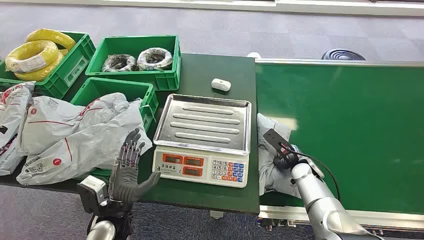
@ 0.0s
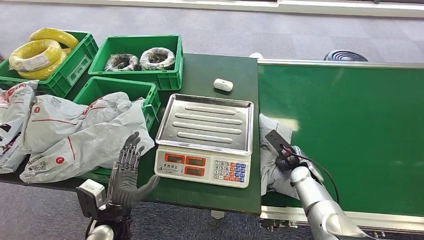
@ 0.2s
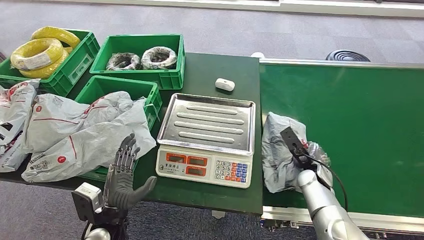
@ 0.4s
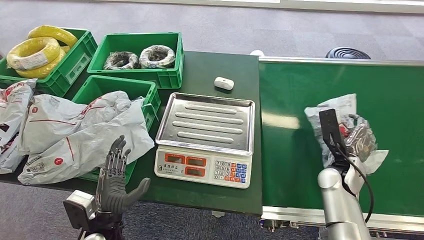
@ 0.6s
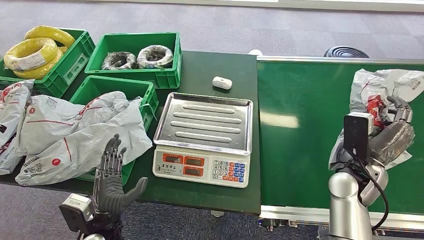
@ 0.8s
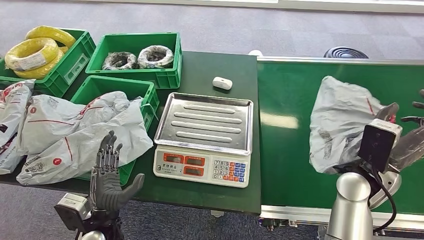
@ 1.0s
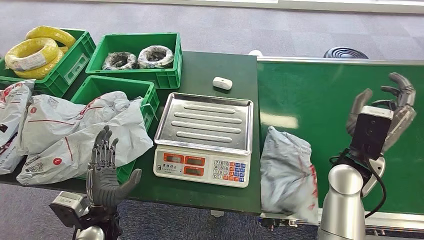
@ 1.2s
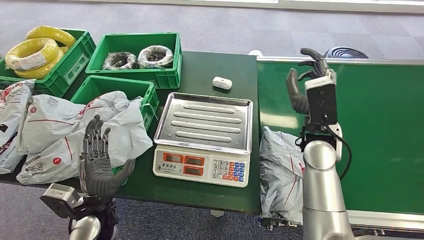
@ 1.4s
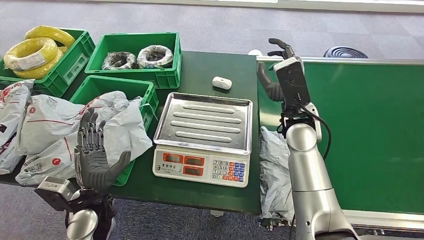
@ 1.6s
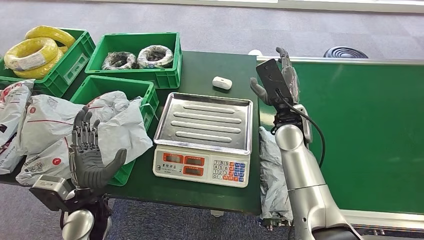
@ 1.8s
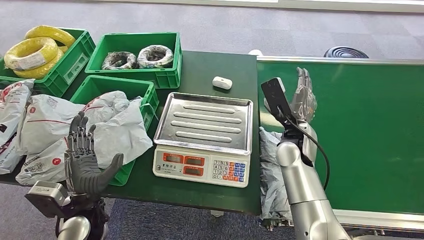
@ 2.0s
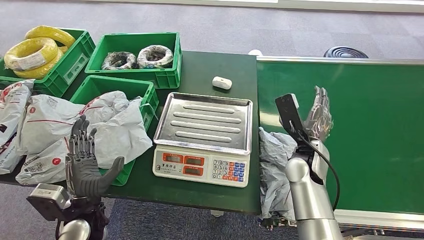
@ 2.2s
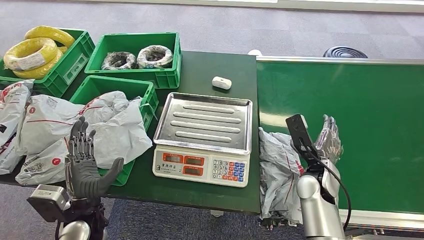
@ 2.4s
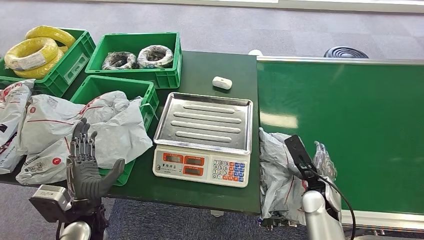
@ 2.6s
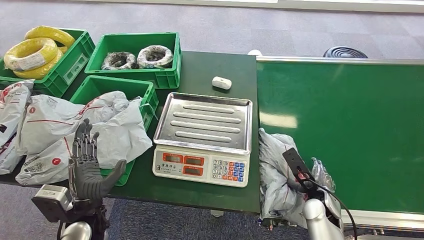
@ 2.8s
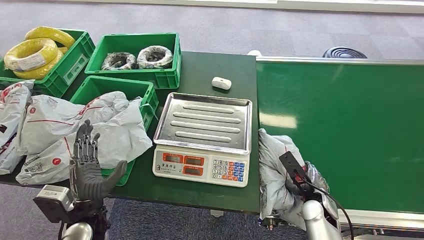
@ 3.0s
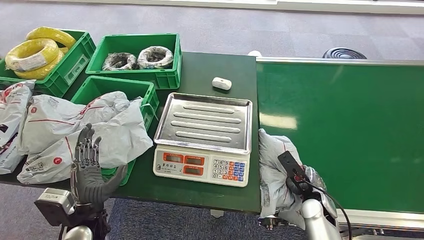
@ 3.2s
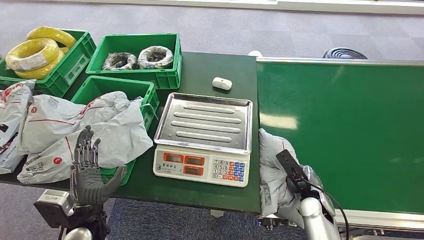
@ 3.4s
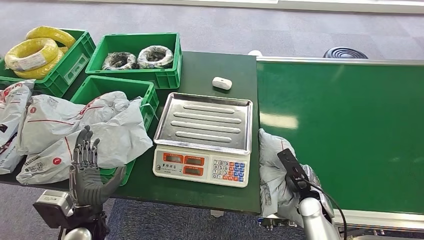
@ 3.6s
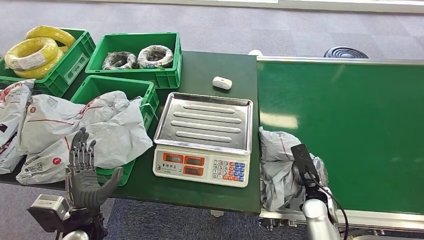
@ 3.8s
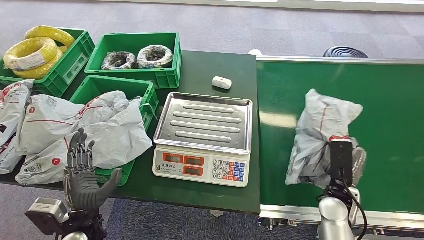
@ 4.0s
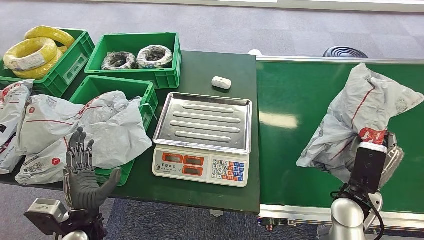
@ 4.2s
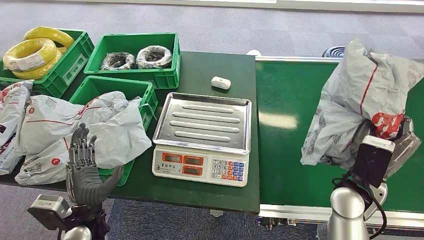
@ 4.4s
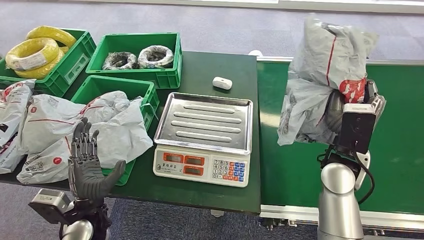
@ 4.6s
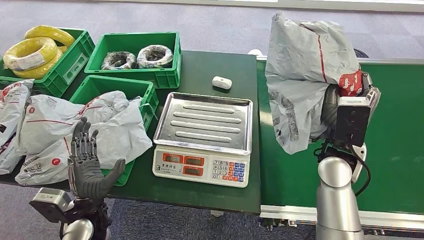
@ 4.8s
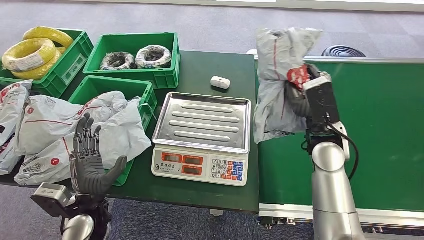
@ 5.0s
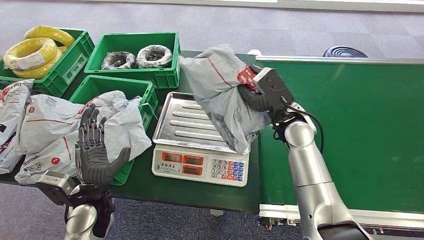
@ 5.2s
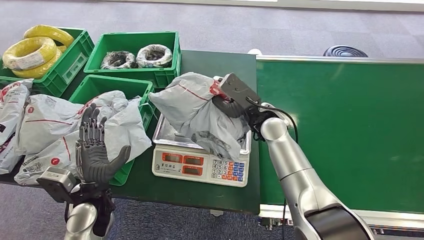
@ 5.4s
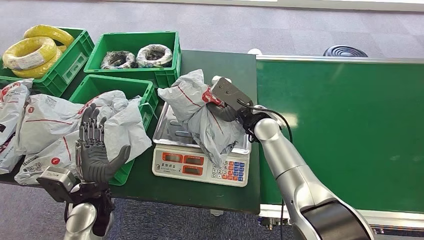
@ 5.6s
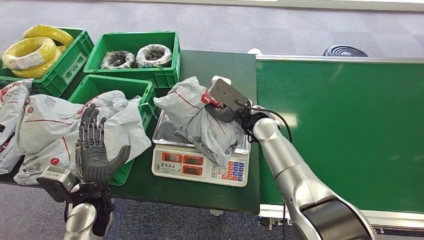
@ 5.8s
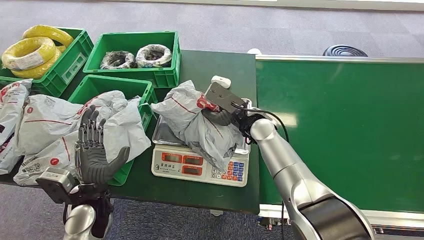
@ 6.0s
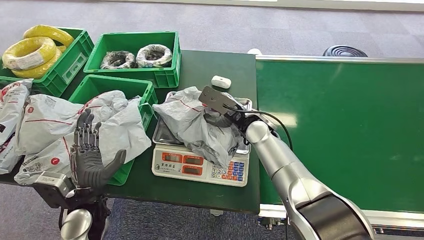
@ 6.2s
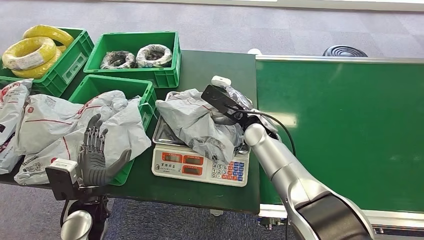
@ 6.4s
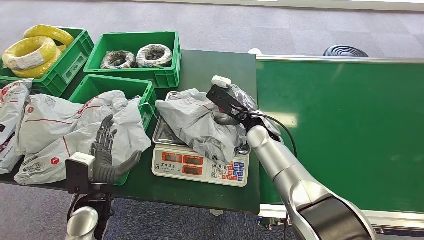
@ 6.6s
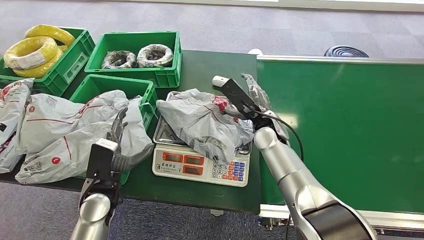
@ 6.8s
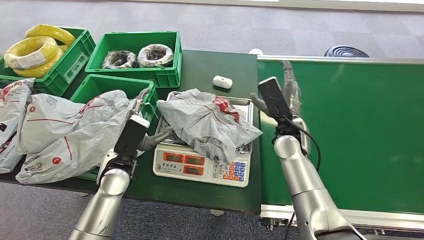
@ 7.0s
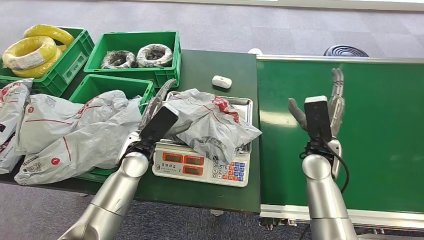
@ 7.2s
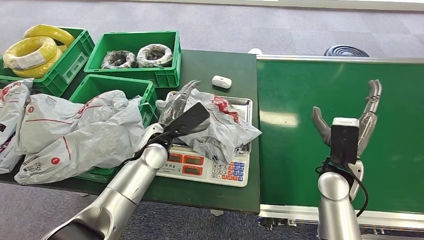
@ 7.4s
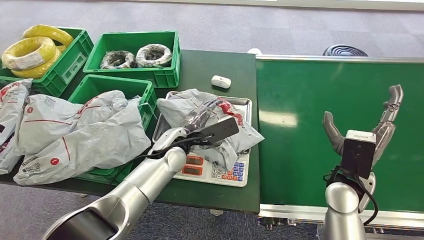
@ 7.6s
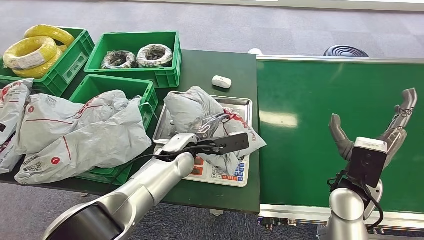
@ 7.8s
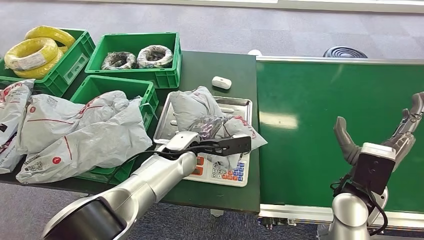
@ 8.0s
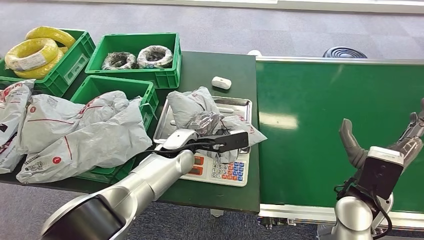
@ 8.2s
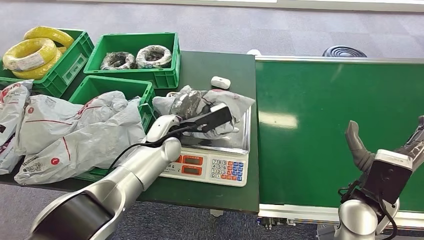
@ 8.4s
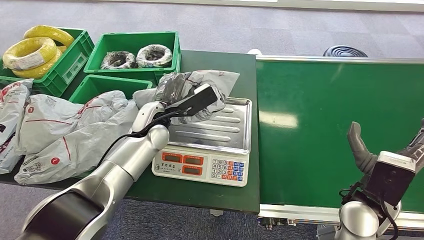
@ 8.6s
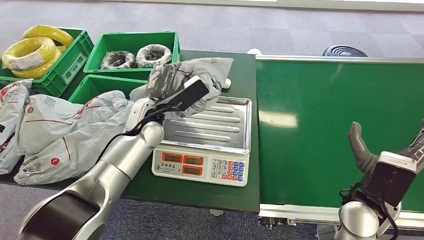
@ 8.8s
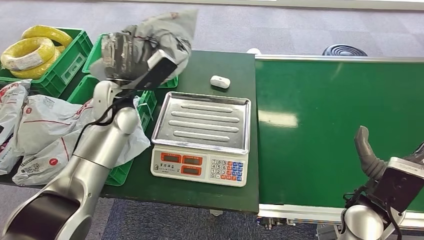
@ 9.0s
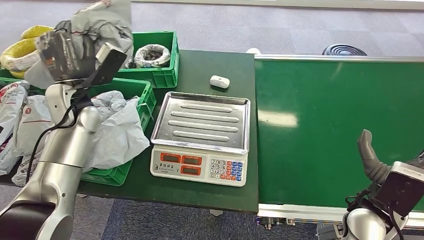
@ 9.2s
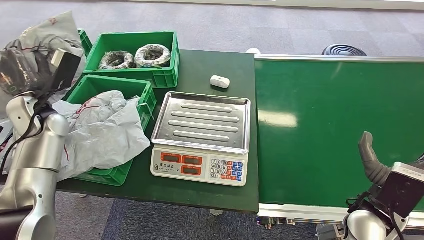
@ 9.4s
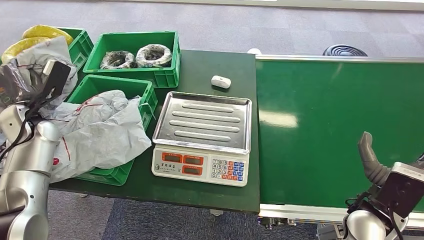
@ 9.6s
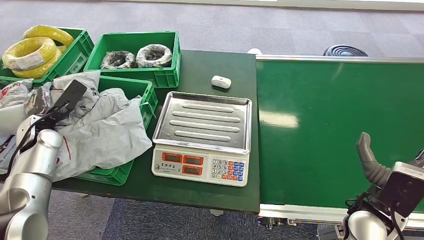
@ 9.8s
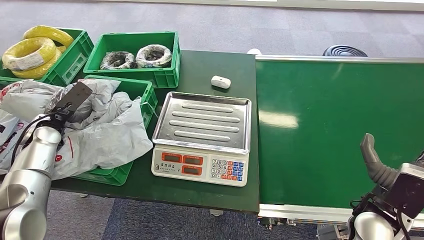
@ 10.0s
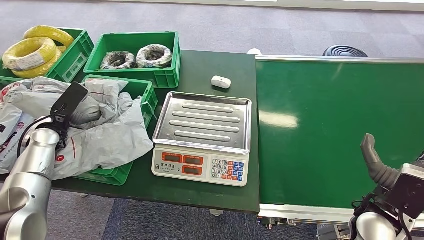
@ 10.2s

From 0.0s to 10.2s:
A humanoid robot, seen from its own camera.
Step, from 0.0s to 0.8s: Pick up the package from the conveyor belt.
Step, from 4.2s to 7.0s: Place the package onto the inbound machine.
Step, from 7.2s to 9.0s: Pick up the package from the inbound machine.
Step, from 9.4s to 10.2s: Place the package into the parcel locker.
From 1.4s to 3.0s: The right hand goes roughly 25 cm downward and backward.

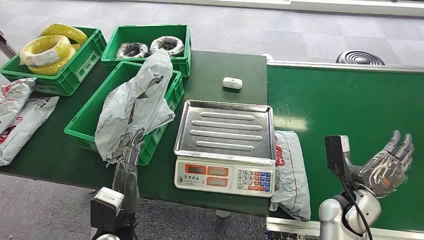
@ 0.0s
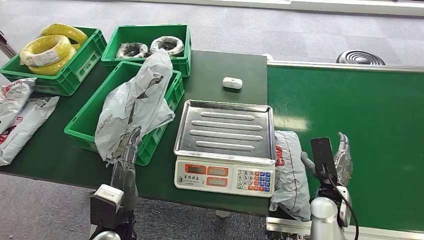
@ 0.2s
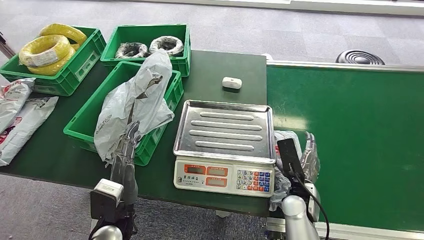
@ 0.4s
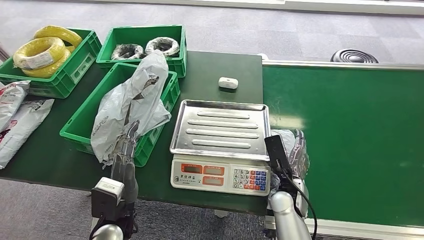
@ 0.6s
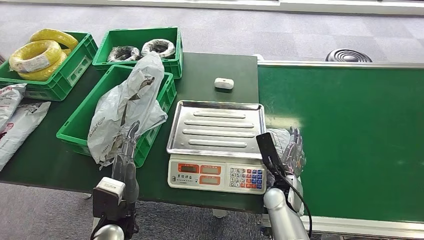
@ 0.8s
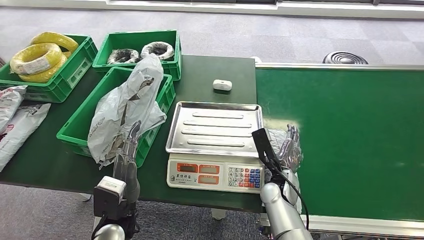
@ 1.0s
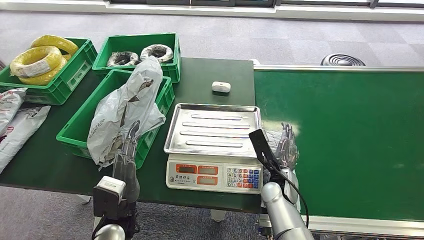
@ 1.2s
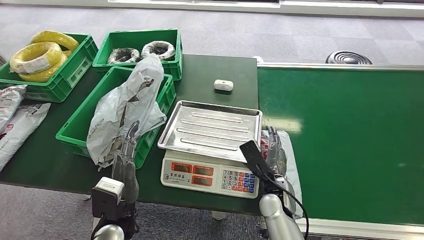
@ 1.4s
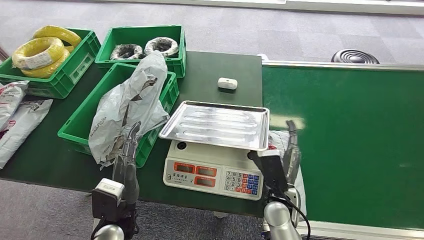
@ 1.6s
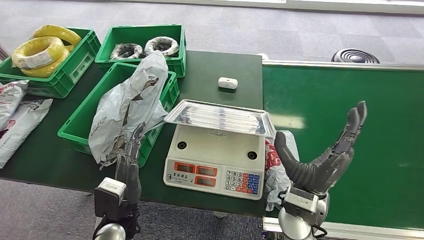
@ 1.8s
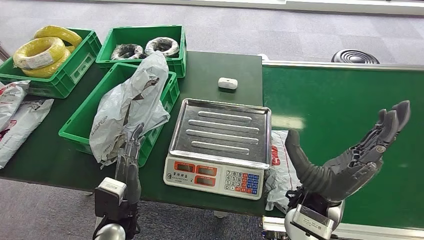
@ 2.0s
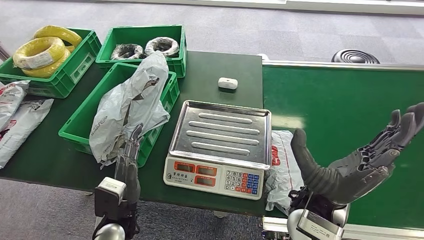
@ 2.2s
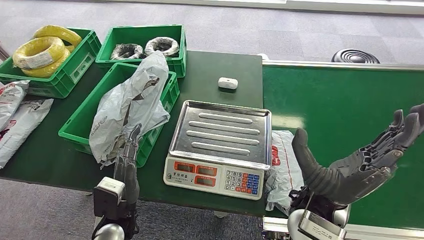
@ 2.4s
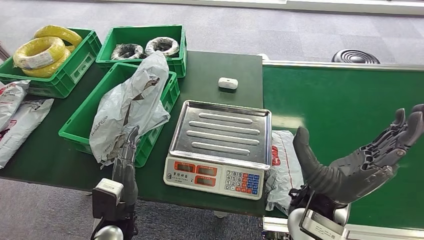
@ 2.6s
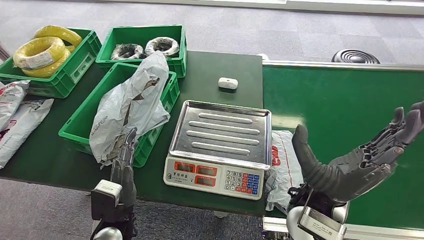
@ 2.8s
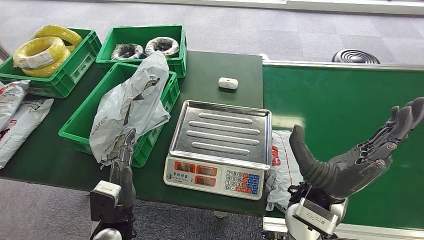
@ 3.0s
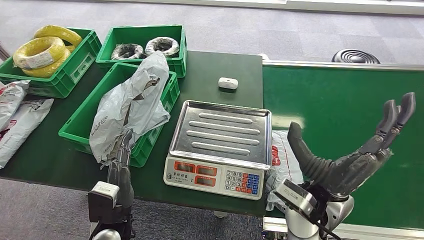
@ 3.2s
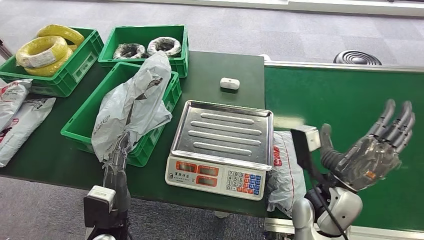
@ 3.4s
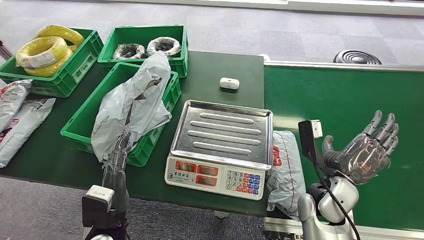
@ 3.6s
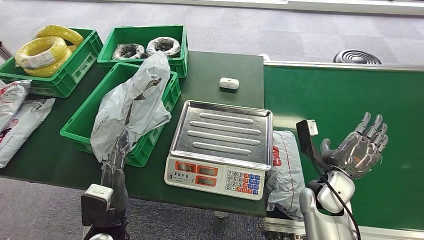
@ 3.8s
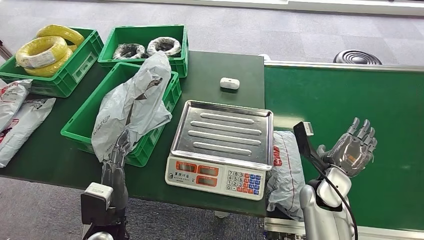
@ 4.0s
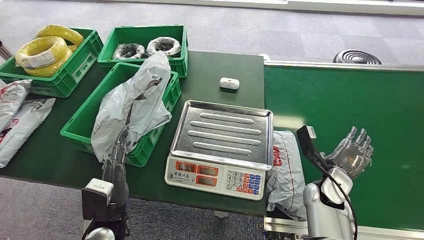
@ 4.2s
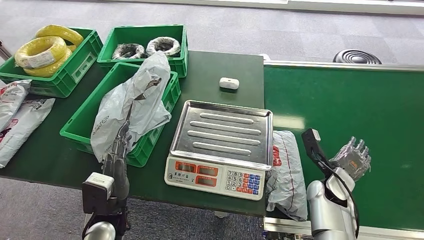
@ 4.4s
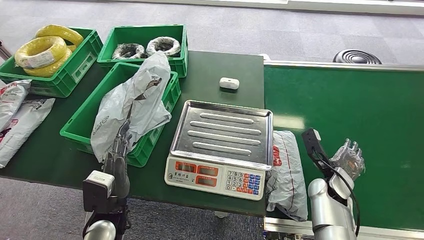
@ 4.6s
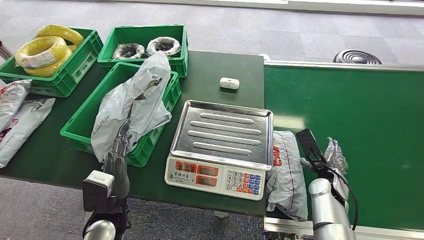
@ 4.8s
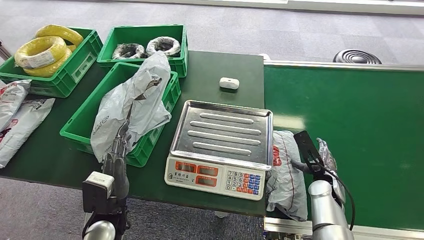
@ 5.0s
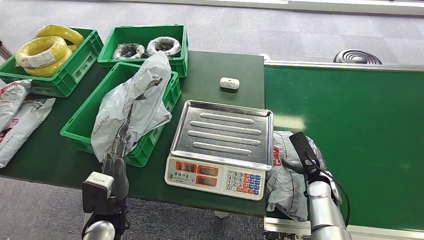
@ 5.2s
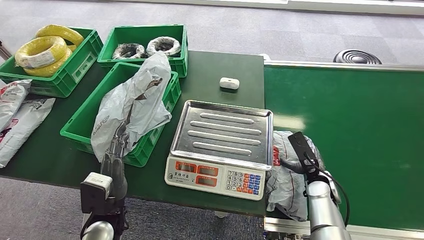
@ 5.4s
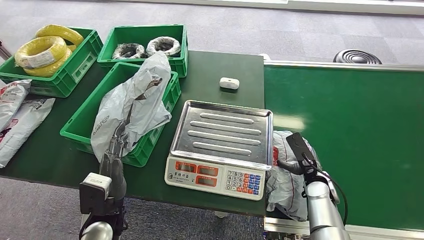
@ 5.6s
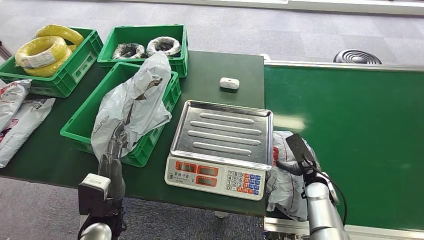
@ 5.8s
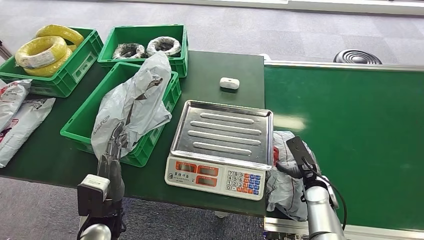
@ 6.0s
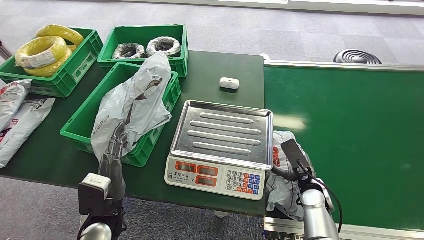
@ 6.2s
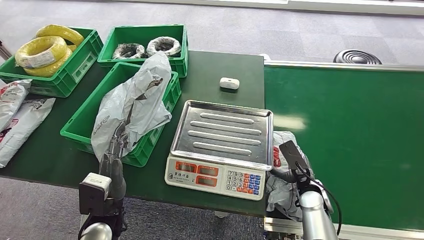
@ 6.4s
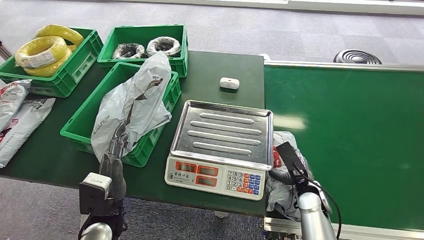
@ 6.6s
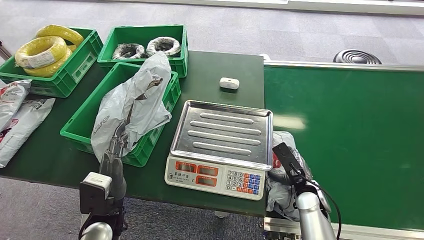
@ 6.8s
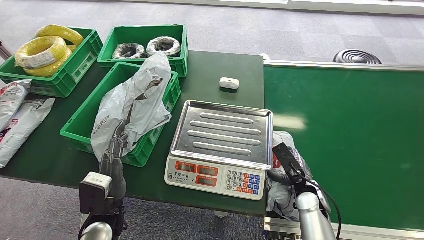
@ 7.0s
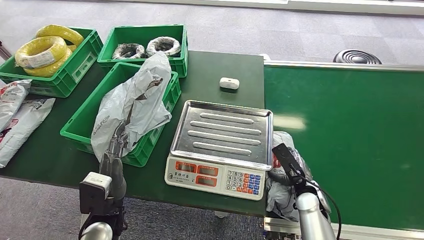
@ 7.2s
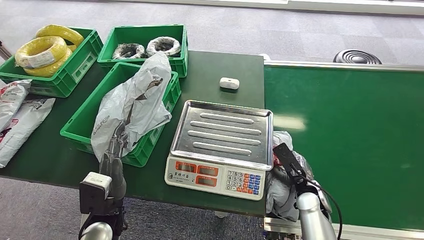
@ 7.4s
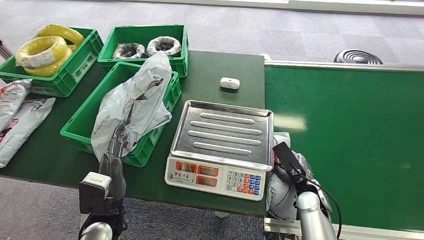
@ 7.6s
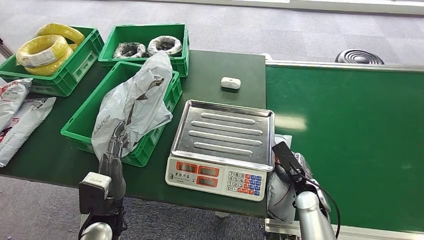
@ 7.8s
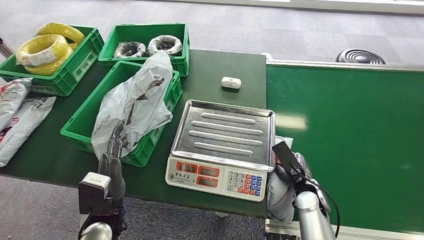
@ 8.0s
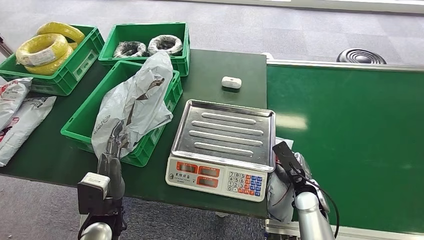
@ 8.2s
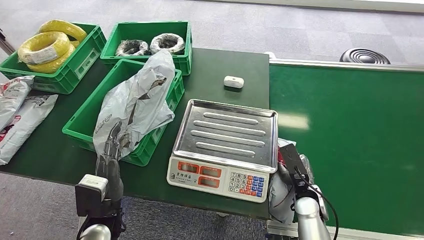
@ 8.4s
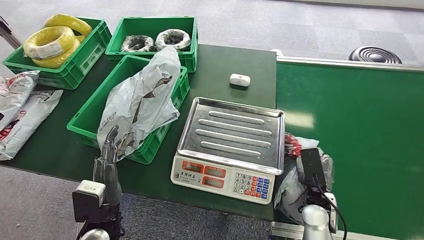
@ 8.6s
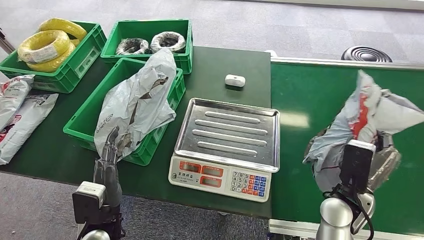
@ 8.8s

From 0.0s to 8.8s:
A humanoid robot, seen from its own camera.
From 3.0s to 4.4s: The right hand heads downward, to the right and forward, covering about 20 cm.
From 5.8s to 7.4s: The hands move only a little.
